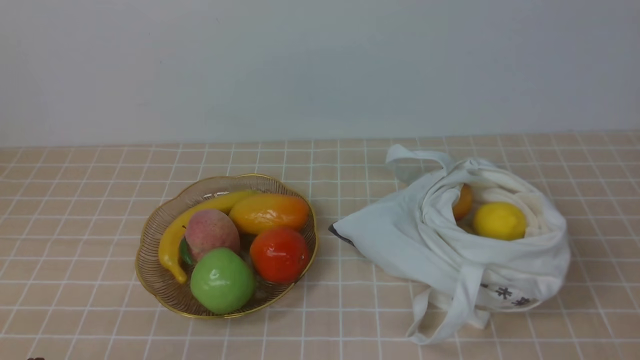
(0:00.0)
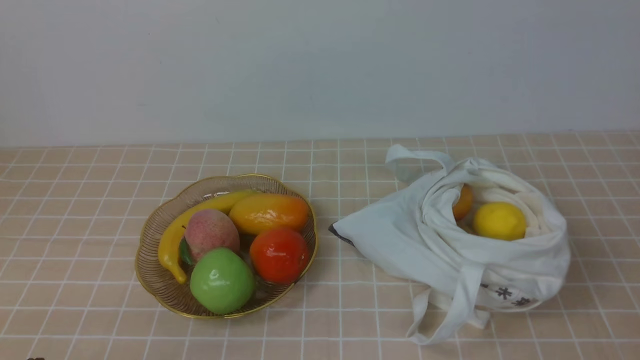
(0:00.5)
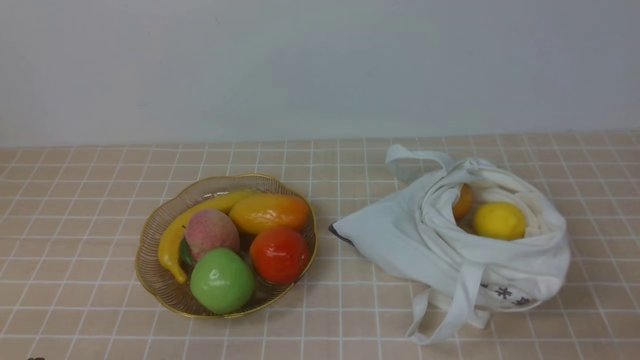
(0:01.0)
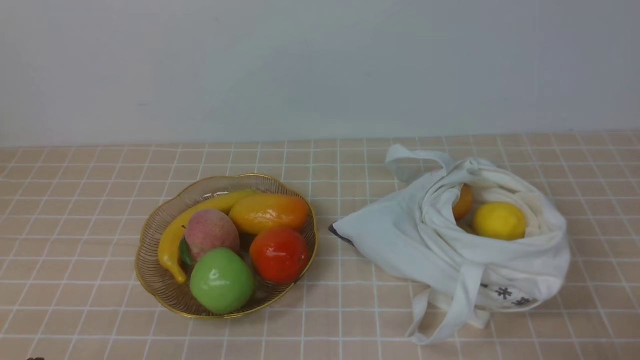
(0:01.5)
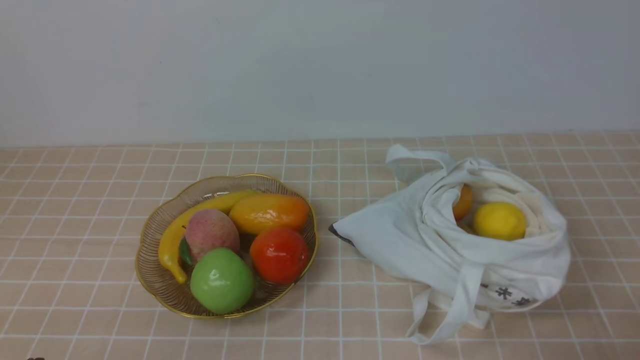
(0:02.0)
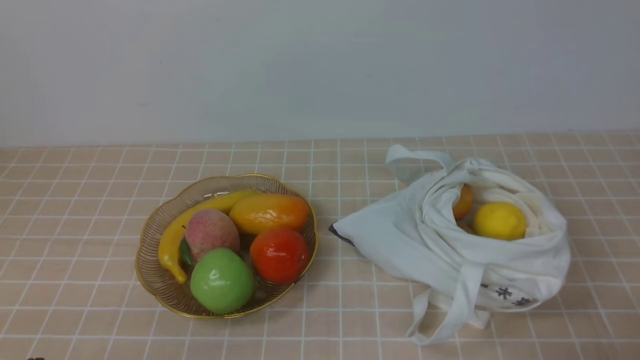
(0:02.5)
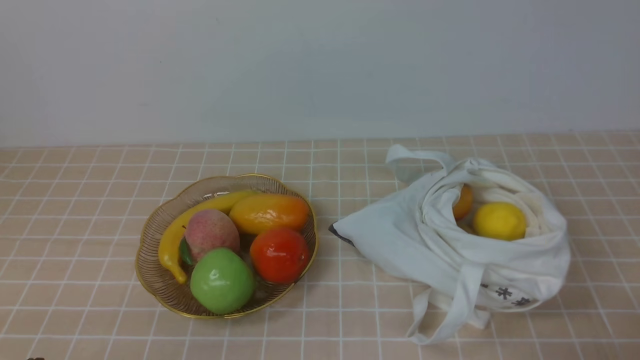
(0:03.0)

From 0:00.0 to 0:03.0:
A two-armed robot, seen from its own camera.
From 0:01.5 to 0:03.0: The two grippers keep their place.
